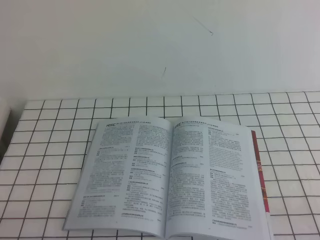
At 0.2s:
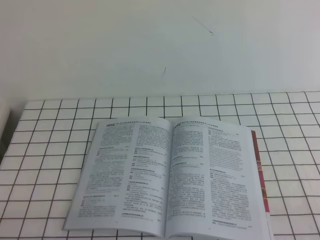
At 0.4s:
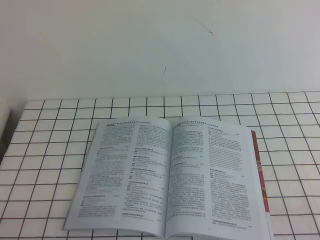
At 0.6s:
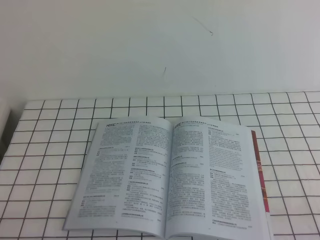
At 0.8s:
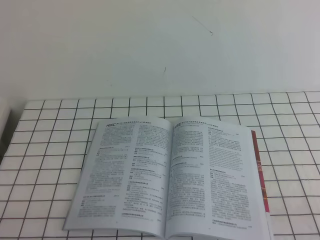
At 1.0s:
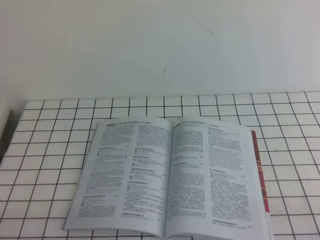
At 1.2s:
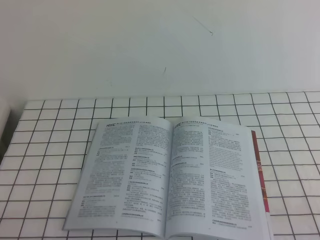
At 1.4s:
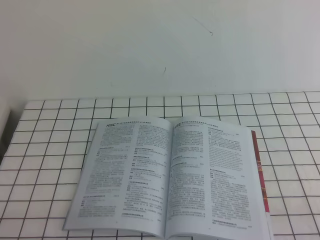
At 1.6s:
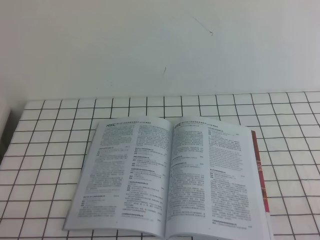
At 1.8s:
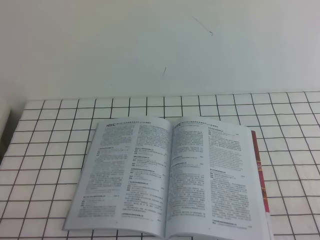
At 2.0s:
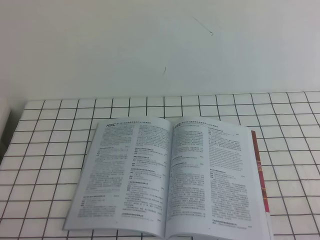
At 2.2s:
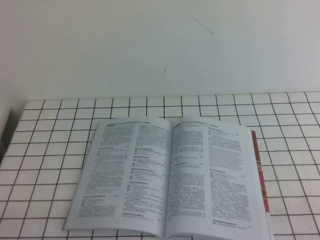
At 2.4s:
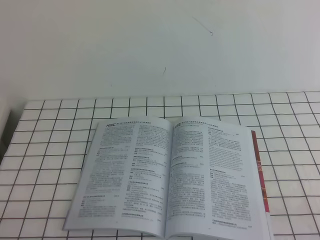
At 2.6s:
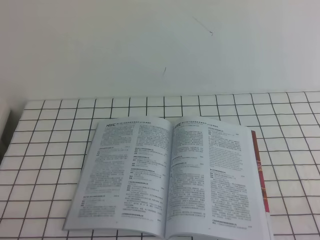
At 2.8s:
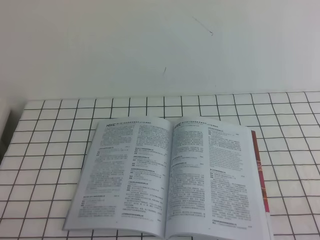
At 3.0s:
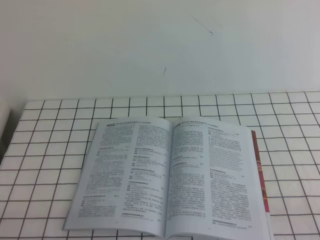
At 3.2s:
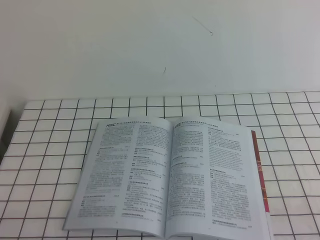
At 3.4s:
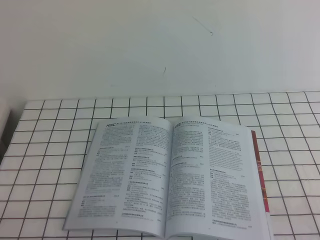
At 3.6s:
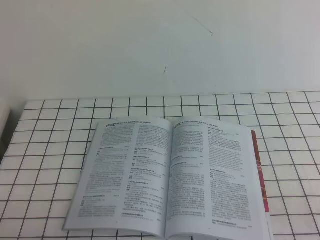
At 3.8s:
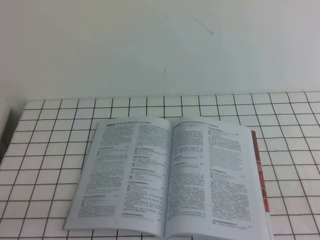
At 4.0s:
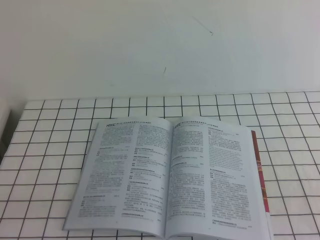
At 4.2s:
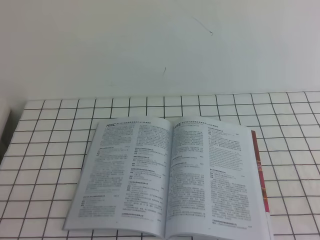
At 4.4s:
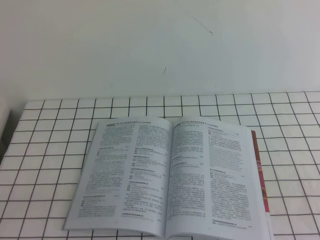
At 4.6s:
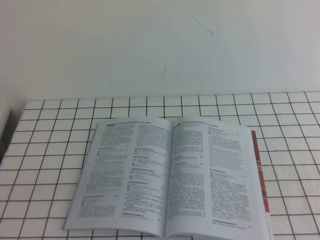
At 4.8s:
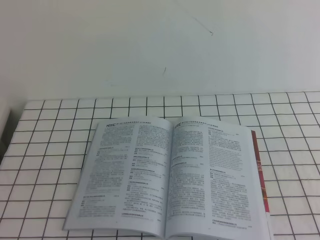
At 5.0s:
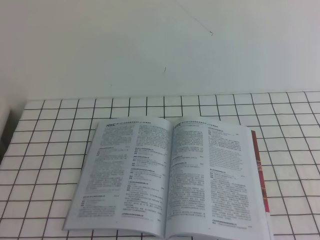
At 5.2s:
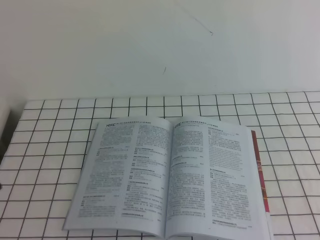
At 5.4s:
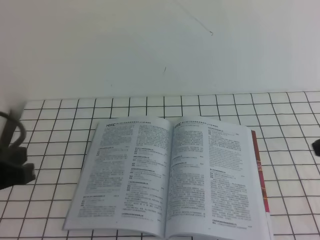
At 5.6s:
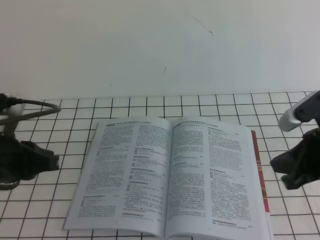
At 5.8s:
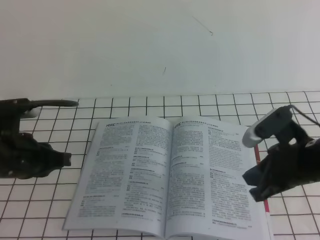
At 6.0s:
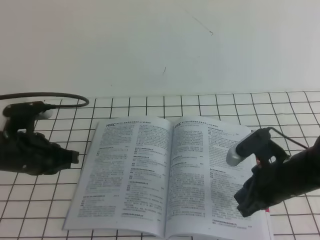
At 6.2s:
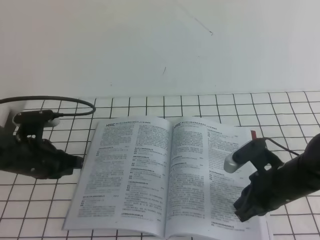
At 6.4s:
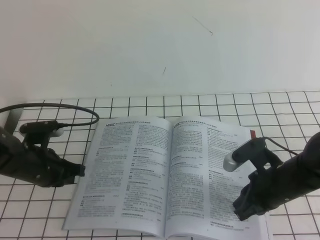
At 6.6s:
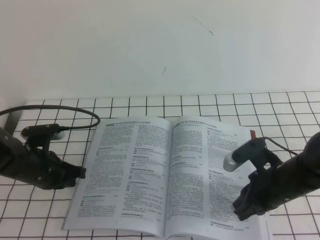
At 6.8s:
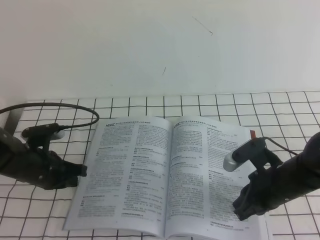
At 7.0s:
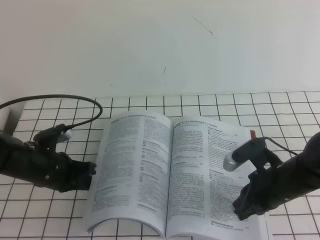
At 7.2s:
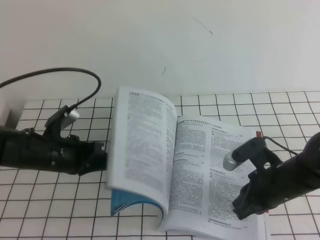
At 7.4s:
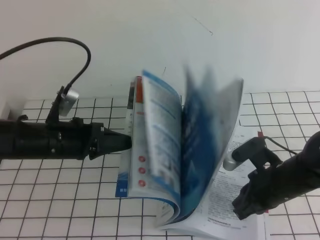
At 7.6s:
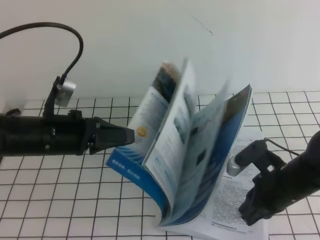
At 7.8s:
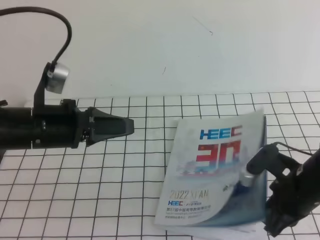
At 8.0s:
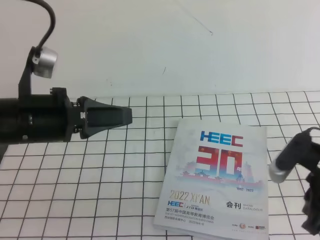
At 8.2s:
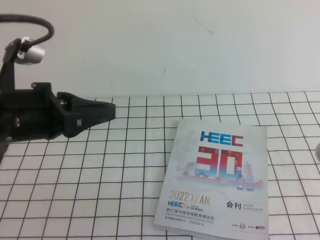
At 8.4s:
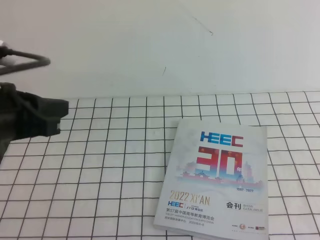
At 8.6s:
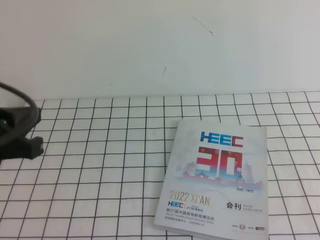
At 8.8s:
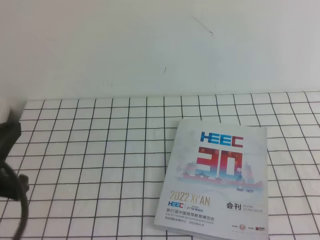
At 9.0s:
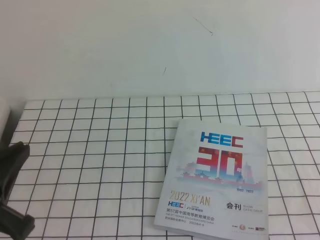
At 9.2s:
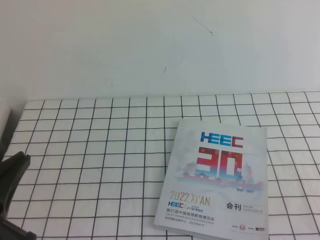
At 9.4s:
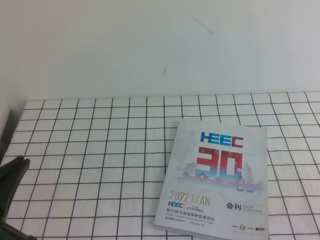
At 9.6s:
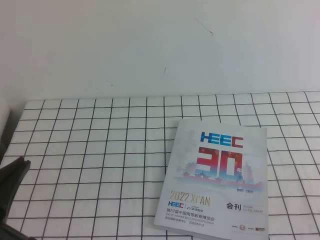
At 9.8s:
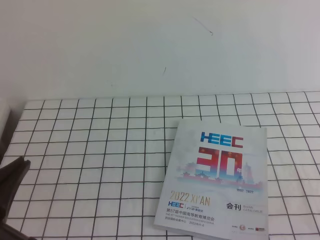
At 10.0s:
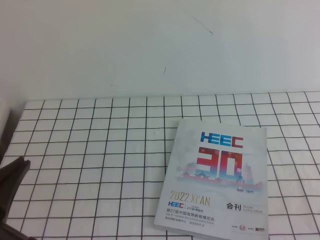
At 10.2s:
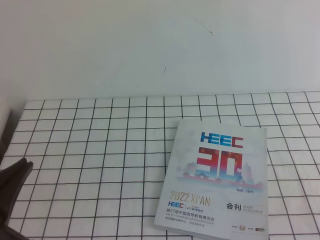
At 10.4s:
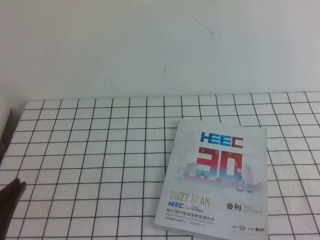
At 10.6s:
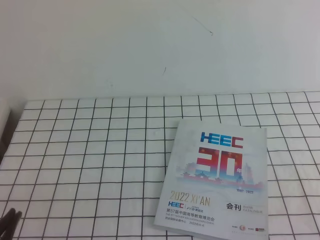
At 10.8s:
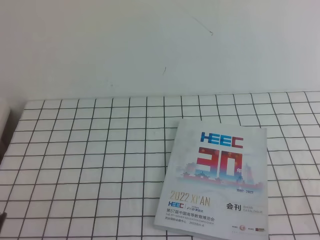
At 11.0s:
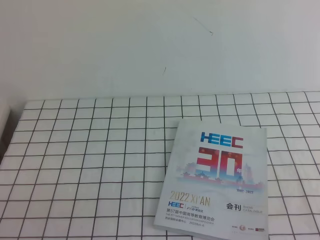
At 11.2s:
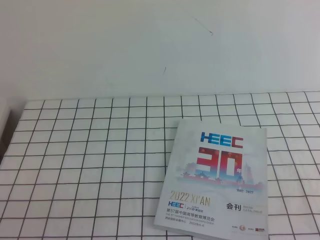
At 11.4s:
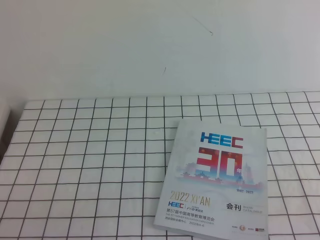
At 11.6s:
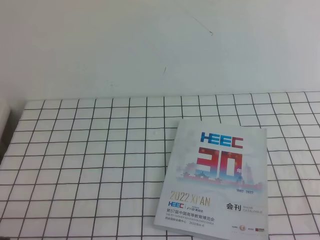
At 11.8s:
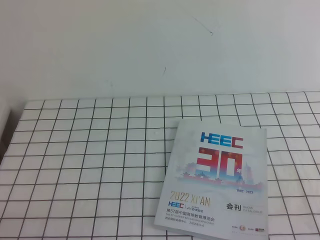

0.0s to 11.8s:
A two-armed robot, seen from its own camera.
Task of the whole recording: on the white tablecloth, hold the book with one hand and close it with the other.
0.0s to 3.0s: The two grippers keep their place.
4.4s to 6.0s: The left gripper goes about 25 cm forward. The right gripper is displaced forward, to the left and downward by about 30 cm.
6.0s to 7.4s: The left gripper moves approximately 10 cm downward and comes back.
7.4s to 8.8s: The left gripper travels backward and upward by roughly 20 cm. Meanwhile the right gripper is displaced upward, backward and to the right by roughly 35 cm.
8.8s to 10.4s: The left gripper moves backward and downward, roughly 10 cm.
10.4s to 11.8s: The left gripper moves downward, approximately 10 cm.

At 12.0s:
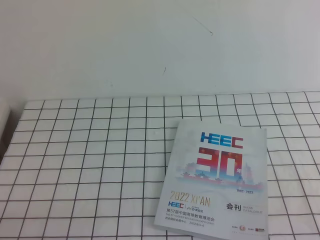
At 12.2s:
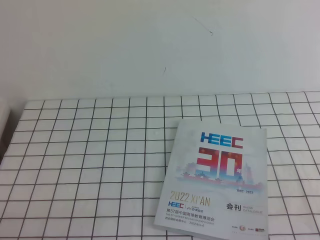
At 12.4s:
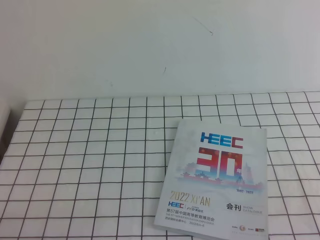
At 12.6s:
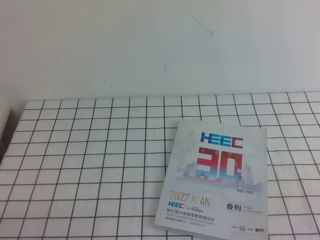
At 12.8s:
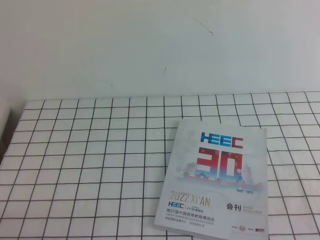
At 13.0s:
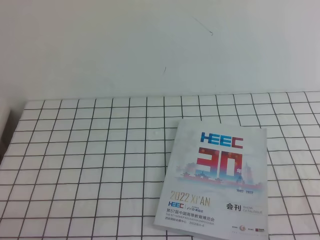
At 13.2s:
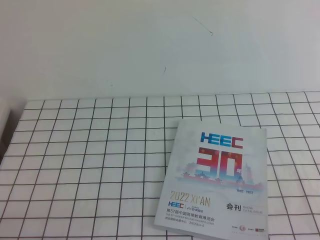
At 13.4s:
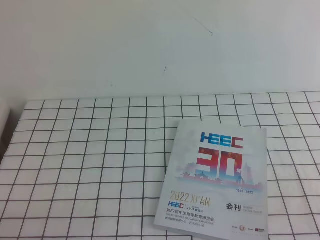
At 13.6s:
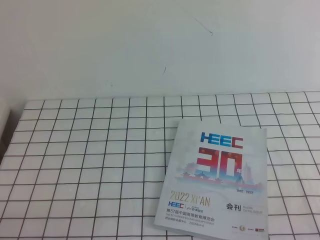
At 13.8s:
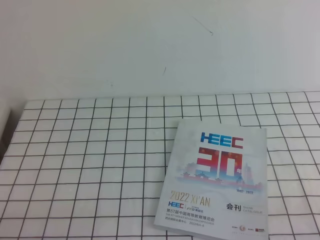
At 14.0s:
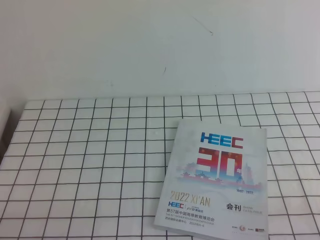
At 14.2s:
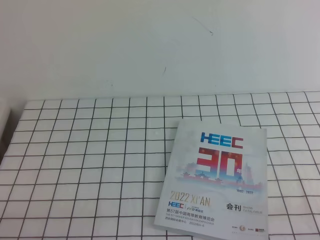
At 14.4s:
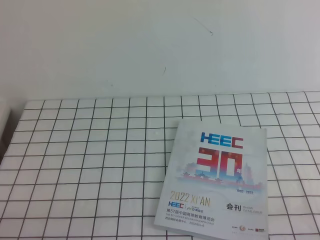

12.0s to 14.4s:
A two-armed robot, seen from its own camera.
Task of the whole recording: on the white tablecloth, hold the book with one hand and close it with the other.
12.0s to 13.2s: The two grippers keep their place.

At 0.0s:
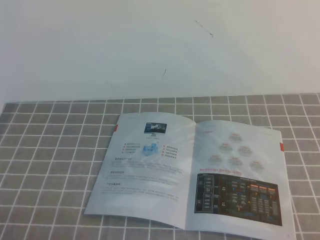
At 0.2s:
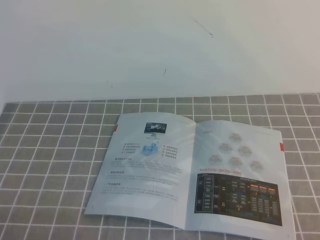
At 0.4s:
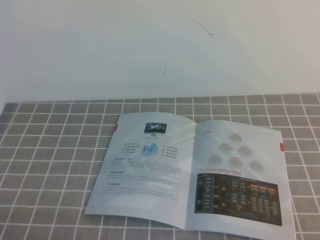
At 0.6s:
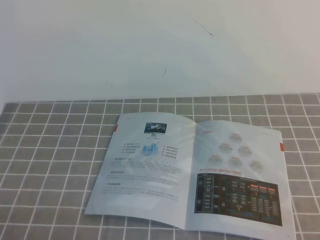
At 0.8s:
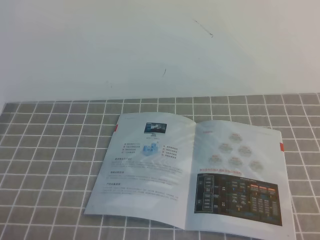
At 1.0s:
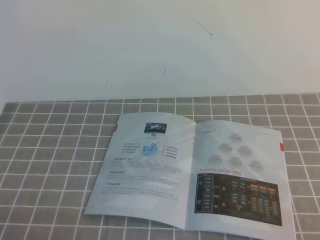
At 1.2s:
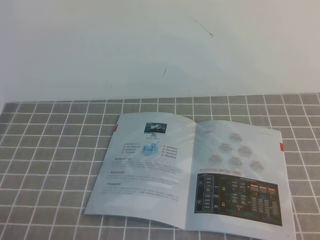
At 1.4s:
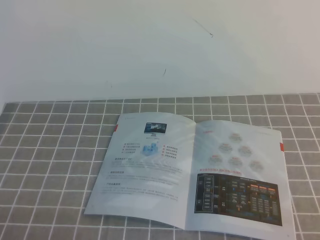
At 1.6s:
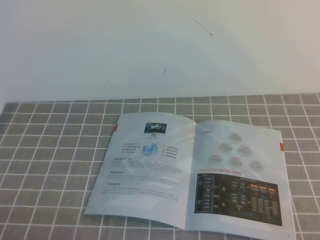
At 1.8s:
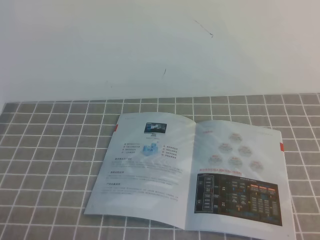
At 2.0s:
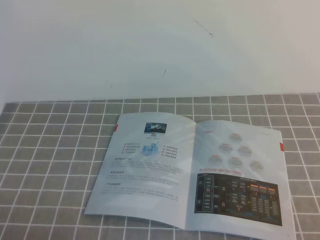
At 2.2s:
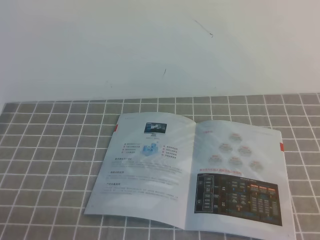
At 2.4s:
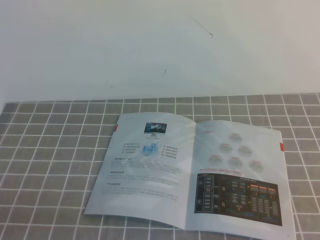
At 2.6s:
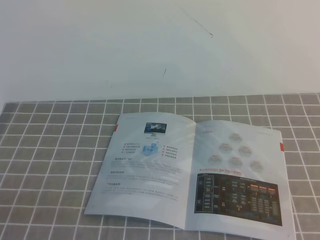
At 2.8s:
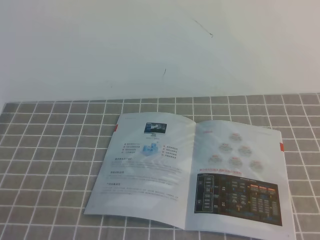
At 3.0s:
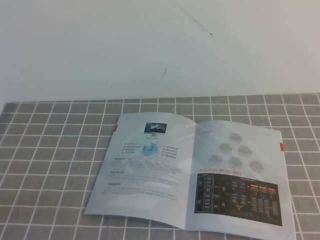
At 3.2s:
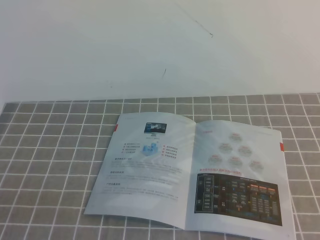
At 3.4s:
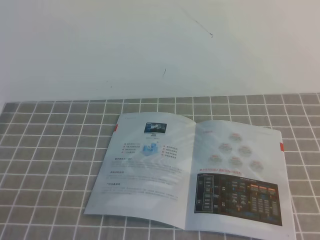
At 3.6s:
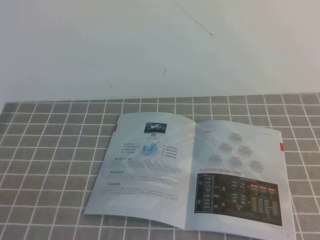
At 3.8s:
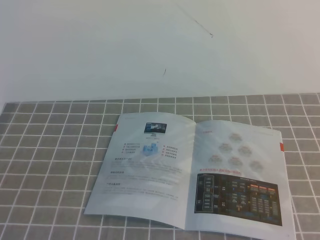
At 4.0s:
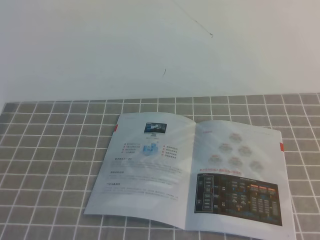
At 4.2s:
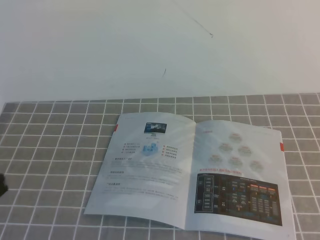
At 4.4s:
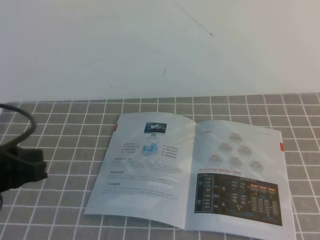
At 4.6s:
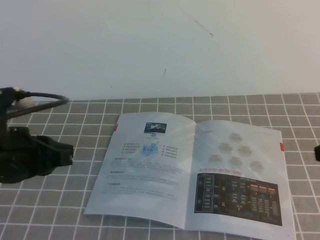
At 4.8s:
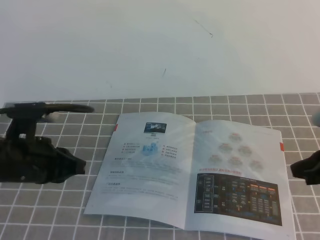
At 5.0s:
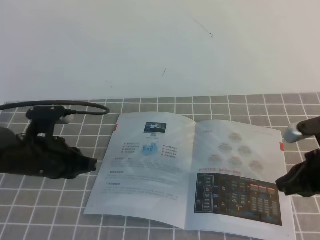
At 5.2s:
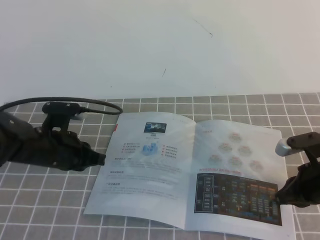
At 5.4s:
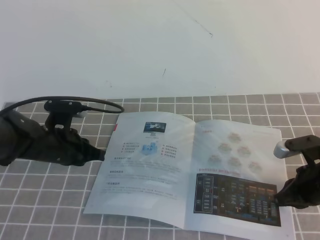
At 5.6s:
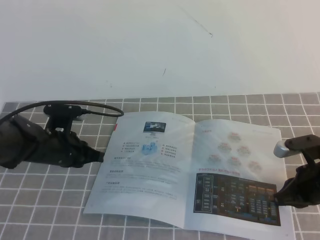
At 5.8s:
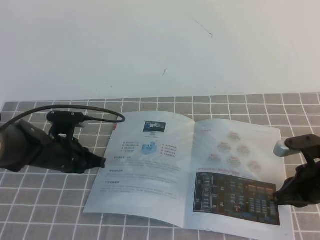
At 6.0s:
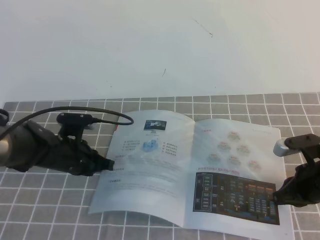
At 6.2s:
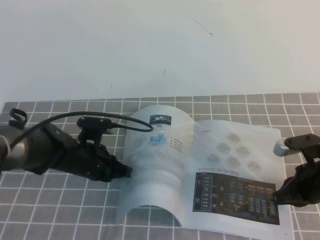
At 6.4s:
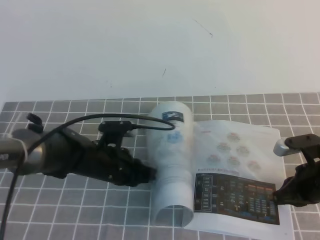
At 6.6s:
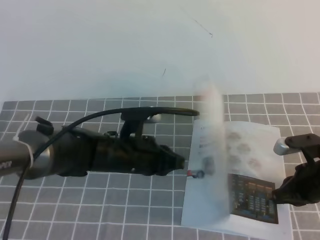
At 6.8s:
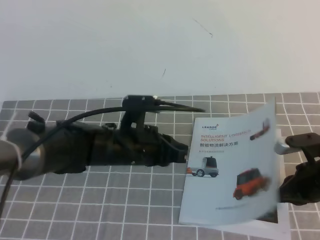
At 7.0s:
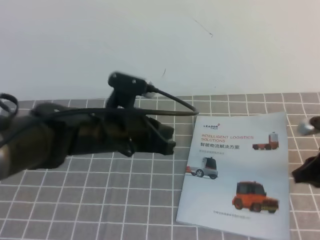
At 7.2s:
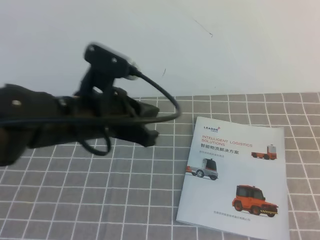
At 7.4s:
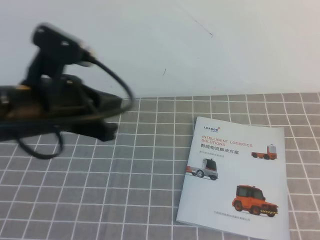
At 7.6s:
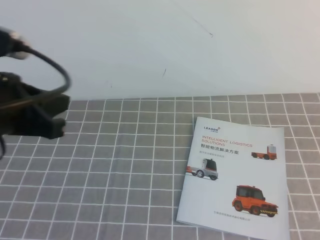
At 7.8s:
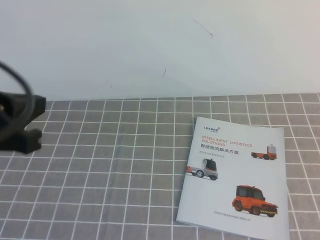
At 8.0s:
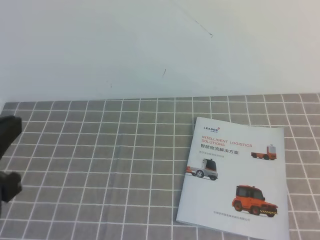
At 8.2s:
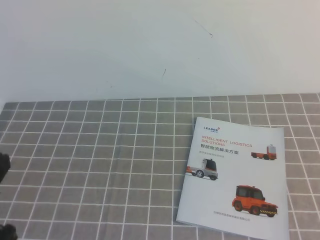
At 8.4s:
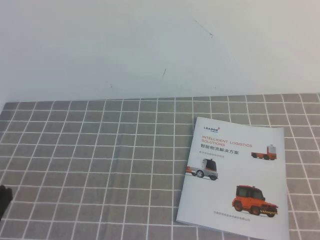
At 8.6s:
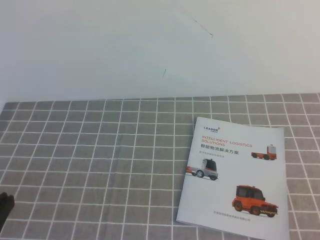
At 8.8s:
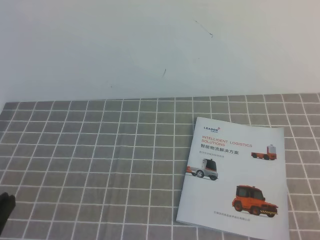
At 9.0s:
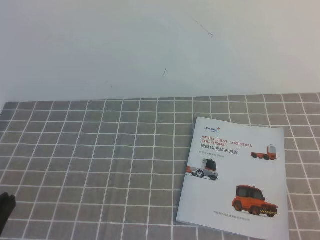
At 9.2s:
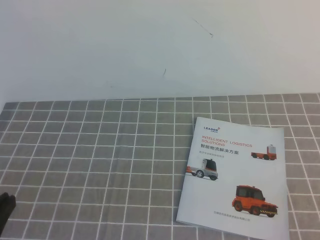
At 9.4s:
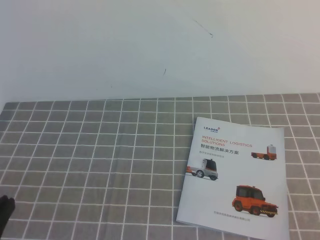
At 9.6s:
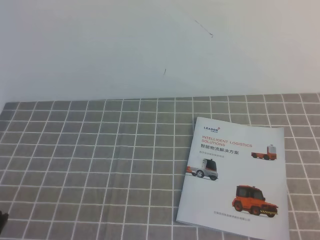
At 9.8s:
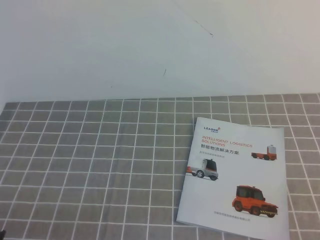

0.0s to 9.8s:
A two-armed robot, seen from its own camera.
Task of the whole recording: on the grey tablecloth, hold the book with one hand and close it with the other.
0.0s to 1.4s: Both grippers stay about where they are.
4.2s to 5.6s: The right gripper is displaced downward and forward by roughly 30 cm. Meanwhile the left gripper is displaced forward and downward by about 30 cm.
5.6s to 7.0s: The right gripper moves about 5 cm, while the left gripper moves to the right, upward and backward, some 15 cm.
7.0s to 8.4s: The right gripper goes roughly 30 cm backward and upward; the left gripper shifts about 25 cm backward and to the left.
